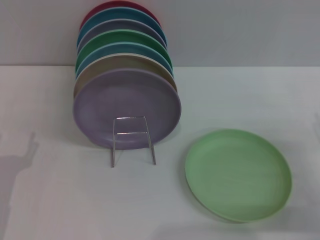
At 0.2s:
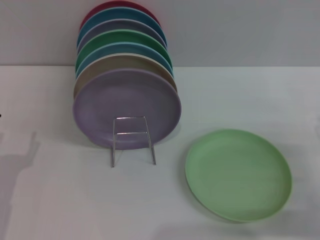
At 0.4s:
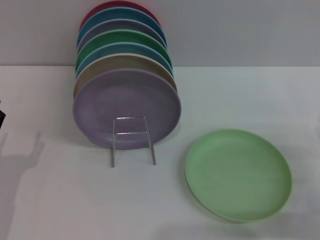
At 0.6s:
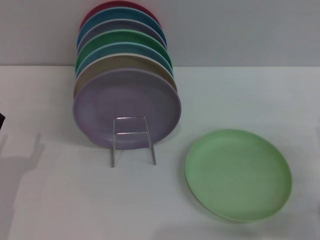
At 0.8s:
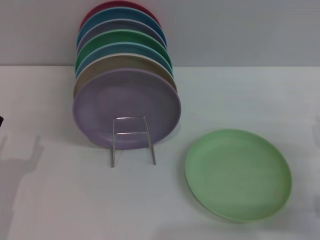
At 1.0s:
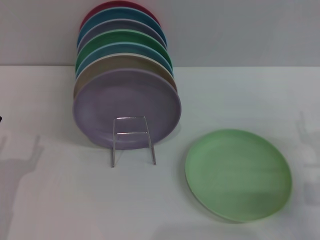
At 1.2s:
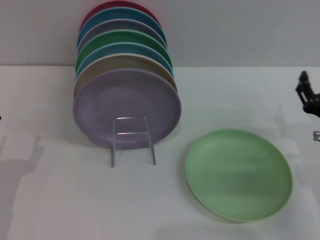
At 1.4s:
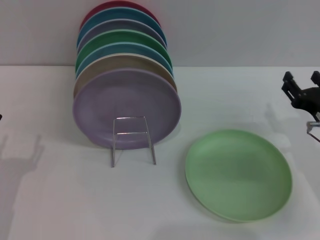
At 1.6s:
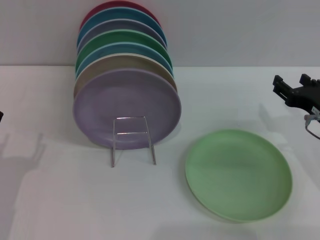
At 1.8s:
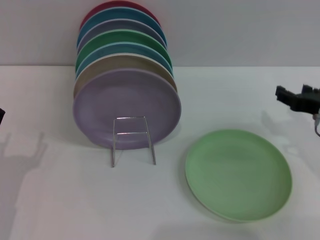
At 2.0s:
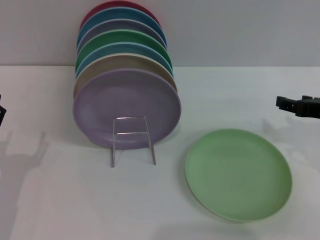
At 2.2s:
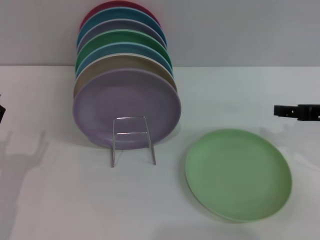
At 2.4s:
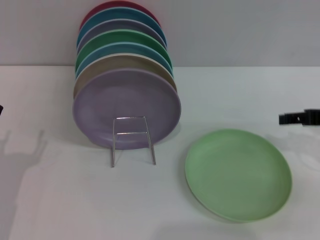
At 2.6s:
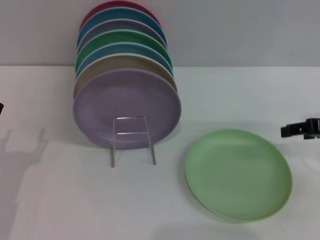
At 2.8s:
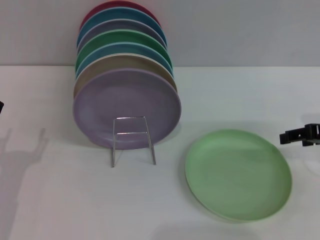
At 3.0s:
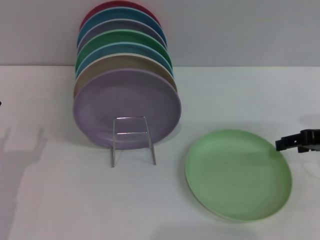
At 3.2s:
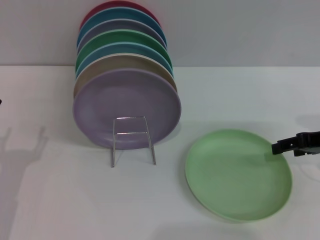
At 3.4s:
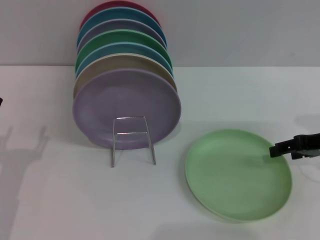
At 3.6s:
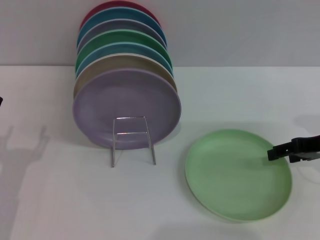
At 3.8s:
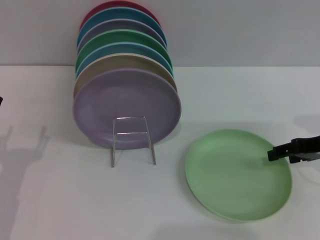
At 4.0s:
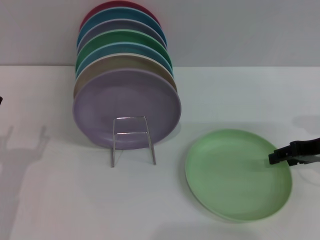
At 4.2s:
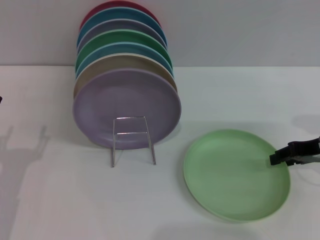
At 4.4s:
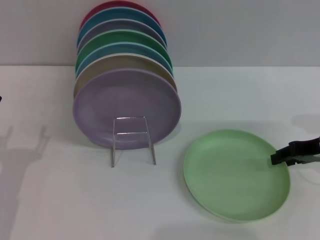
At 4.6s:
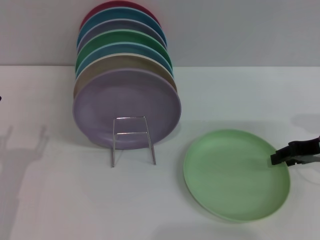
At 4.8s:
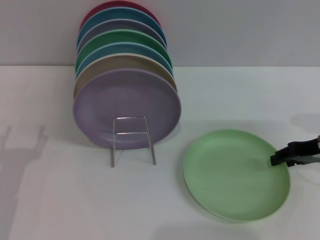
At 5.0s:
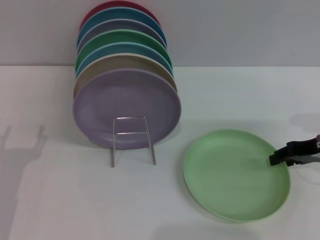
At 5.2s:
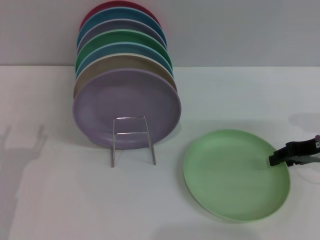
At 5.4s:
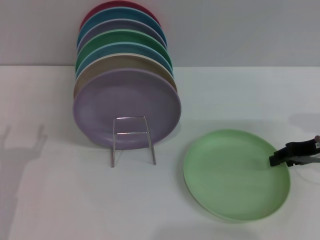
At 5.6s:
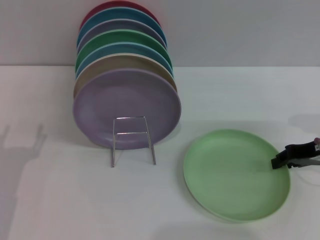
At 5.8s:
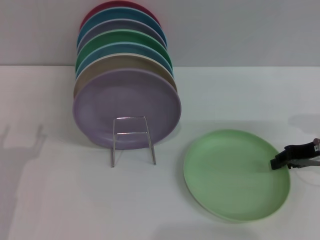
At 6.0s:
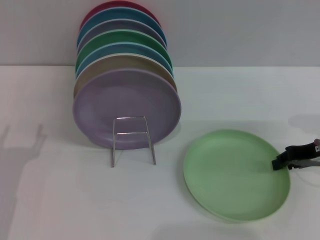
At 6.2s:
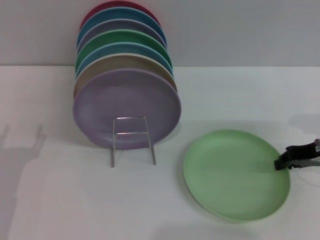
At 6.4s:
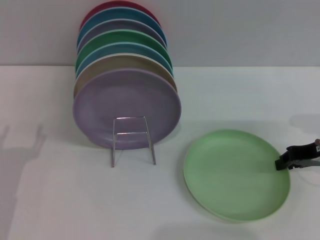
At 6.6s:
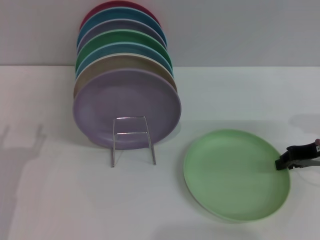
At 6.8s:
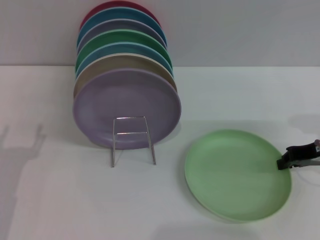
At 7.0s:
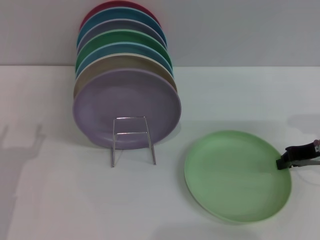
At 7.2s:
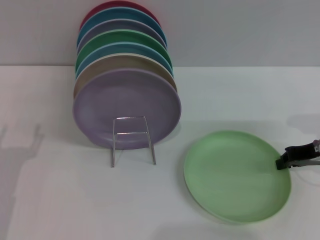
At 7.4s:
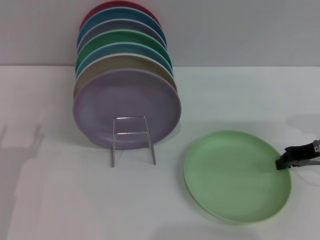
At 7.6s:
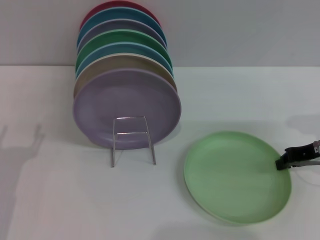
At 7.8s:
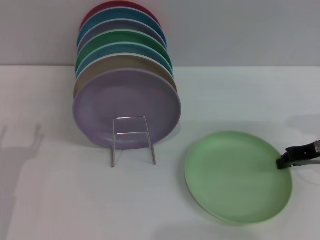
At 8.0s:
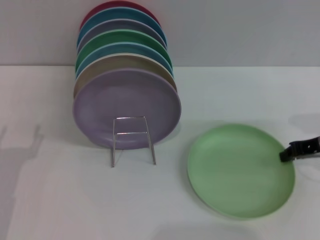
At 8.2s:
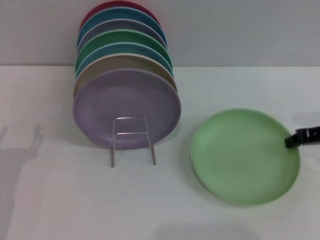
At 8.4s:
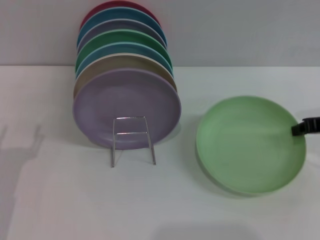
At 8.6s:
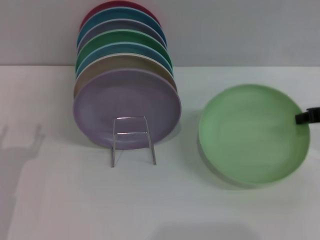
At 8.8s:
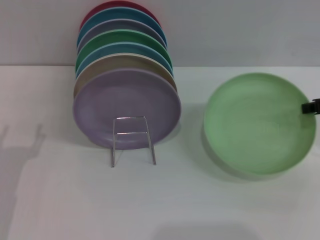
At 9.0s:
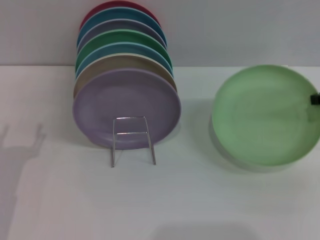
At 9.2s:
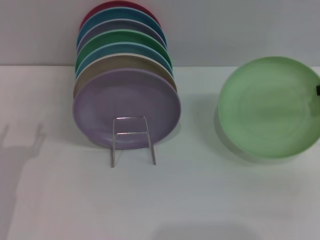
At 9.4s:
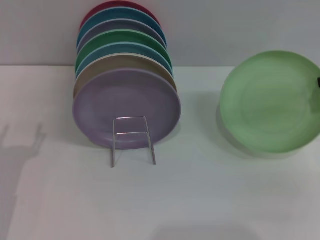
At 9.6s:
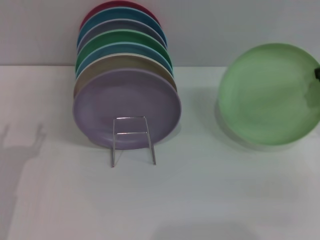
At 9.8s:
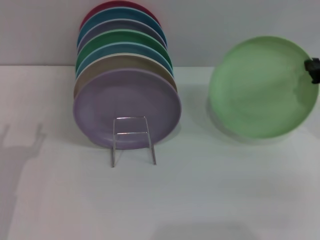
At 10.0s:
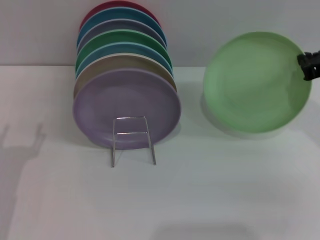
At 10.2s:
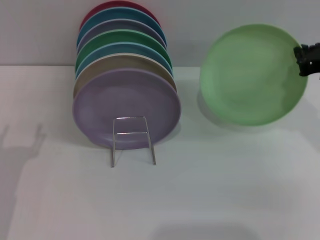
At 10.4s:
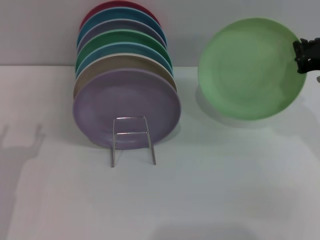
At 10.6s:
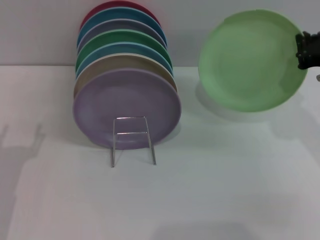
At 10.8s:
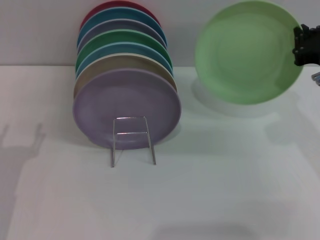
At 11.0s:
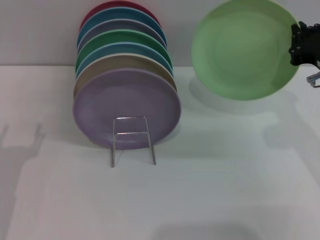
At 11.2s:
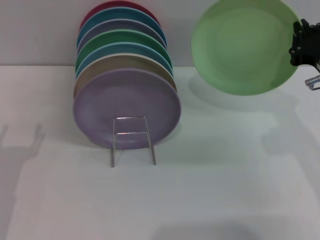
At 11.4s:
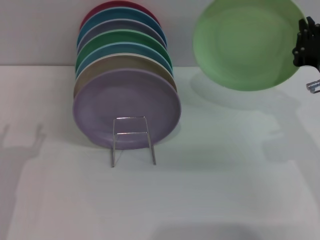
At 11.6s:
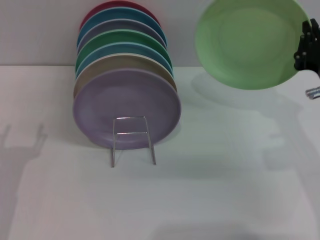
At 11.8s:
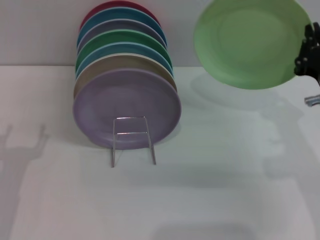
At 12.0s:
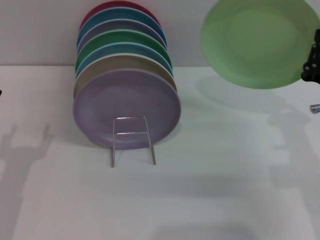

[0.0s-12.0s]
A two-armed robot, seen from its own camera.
Task of the whole recording: Grip the plate with one hand, pass it to the other, then set it on the shelf.
Step, 0.0s to 8.8s: Pick up the plate with the right gripper.
0.0s to 1.6s: The right gripper heads forward and to the left, covering about 10 cm.
1.6s to 3.0s: The right gripper travels upward by about 5 cm.
3.0s to 4.4s: The right gripper closes.
4.4s to 7.6s: Both grippers stay put.
7.6s to 9.0s: The right gripper moves upward, about 5 cm.
9.0s to 10.4s: The right gripper is displaced to the left by some 5 cm.
10.4s to 12.0s: The right gripper shifts roughly 10 cm backward and downward.

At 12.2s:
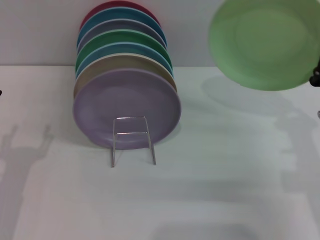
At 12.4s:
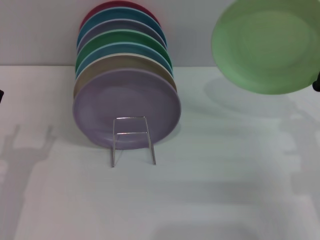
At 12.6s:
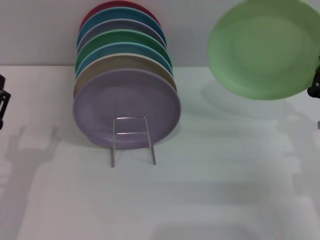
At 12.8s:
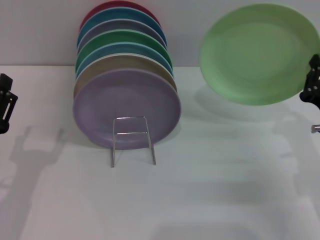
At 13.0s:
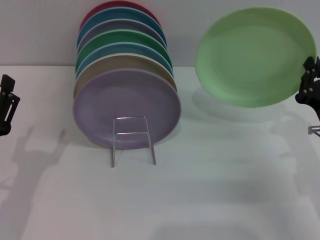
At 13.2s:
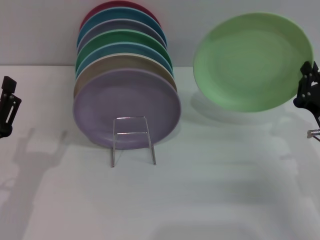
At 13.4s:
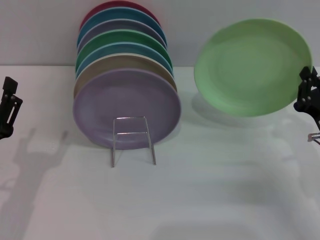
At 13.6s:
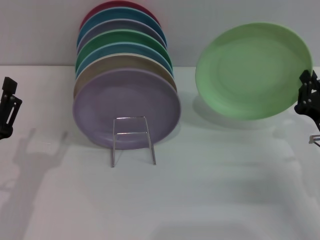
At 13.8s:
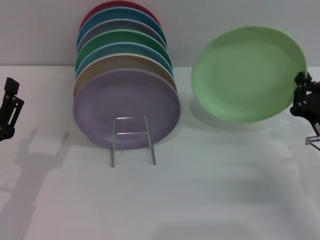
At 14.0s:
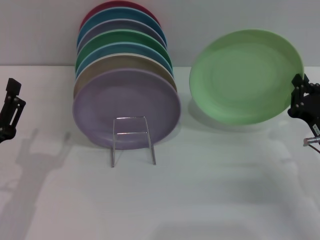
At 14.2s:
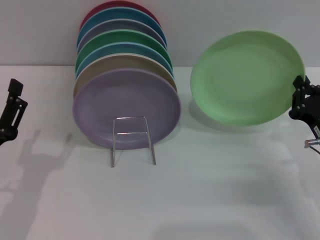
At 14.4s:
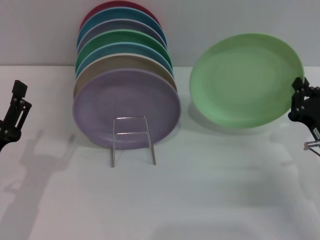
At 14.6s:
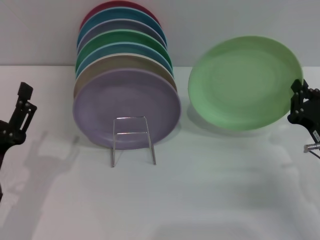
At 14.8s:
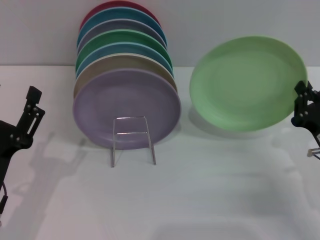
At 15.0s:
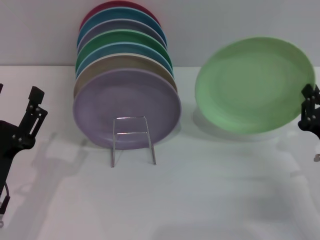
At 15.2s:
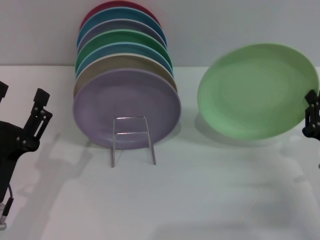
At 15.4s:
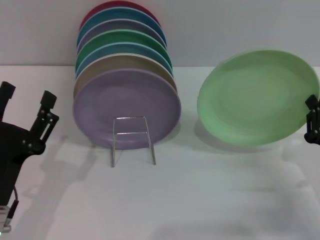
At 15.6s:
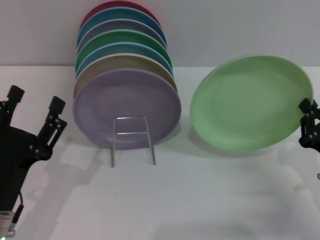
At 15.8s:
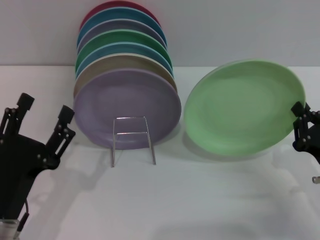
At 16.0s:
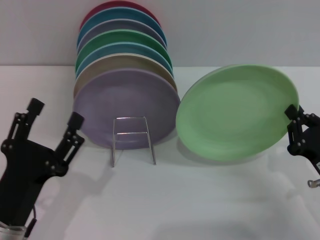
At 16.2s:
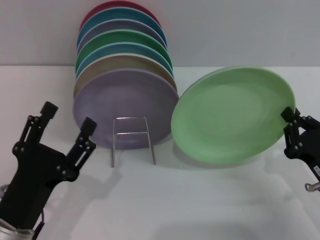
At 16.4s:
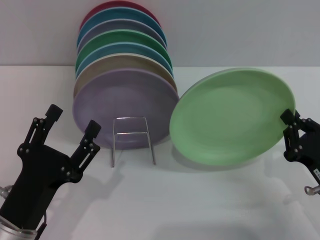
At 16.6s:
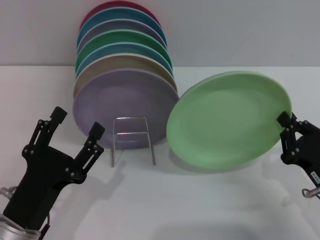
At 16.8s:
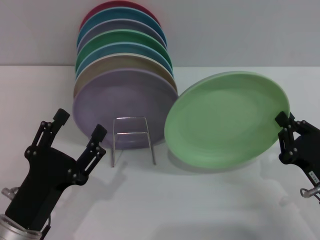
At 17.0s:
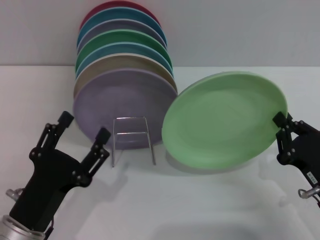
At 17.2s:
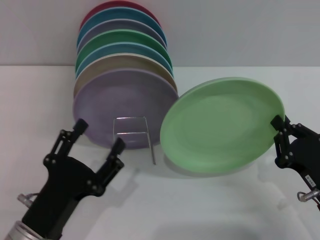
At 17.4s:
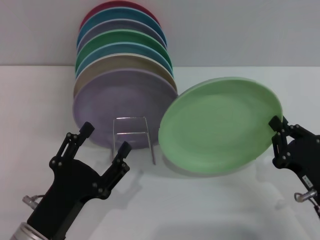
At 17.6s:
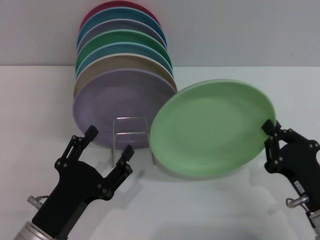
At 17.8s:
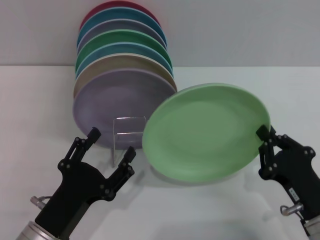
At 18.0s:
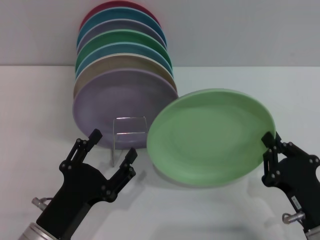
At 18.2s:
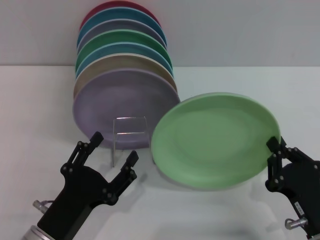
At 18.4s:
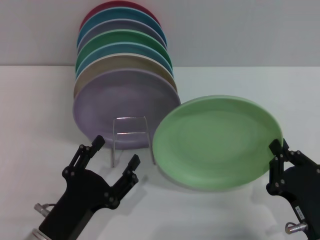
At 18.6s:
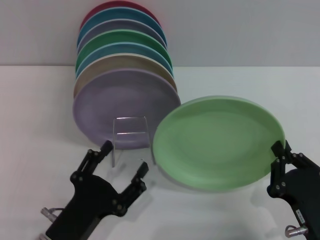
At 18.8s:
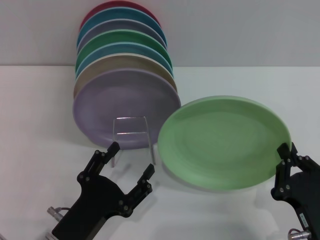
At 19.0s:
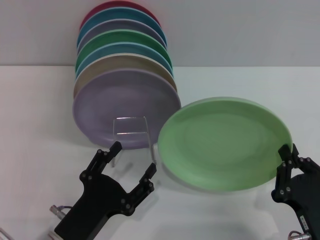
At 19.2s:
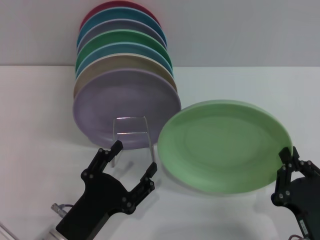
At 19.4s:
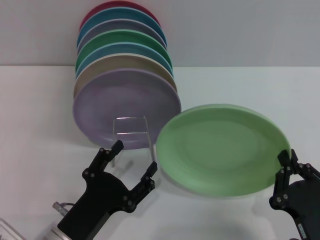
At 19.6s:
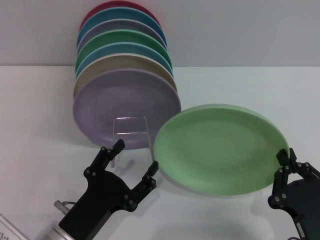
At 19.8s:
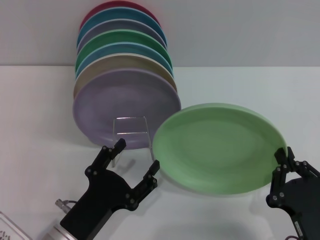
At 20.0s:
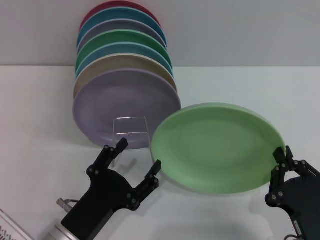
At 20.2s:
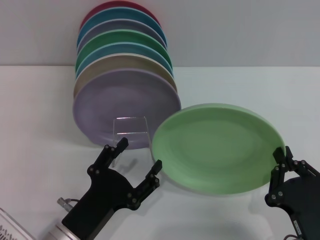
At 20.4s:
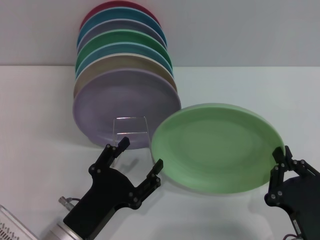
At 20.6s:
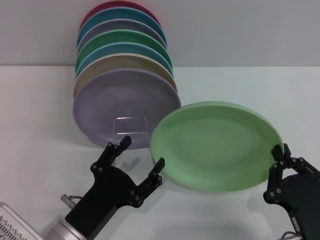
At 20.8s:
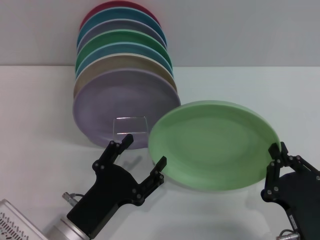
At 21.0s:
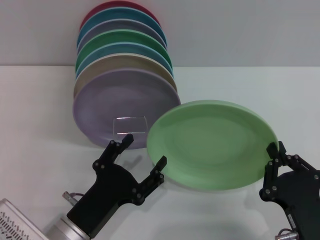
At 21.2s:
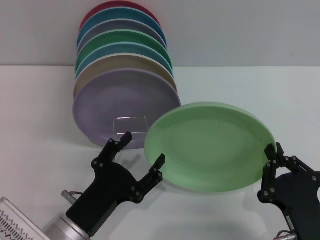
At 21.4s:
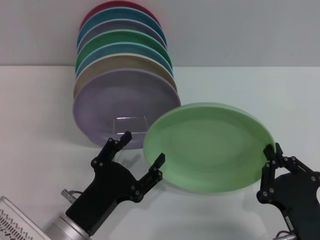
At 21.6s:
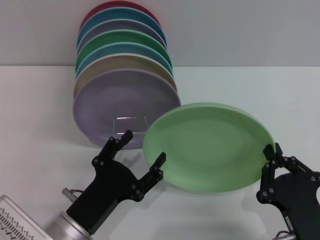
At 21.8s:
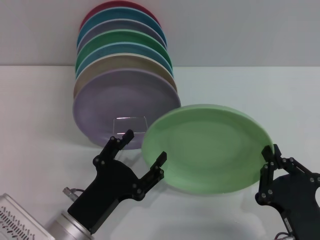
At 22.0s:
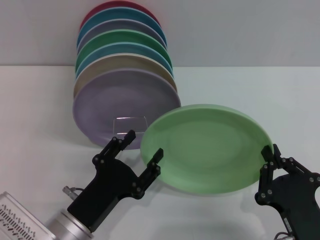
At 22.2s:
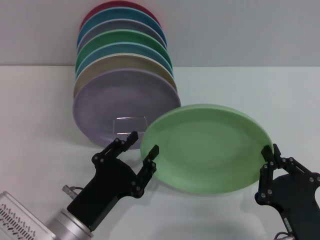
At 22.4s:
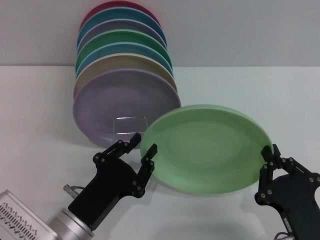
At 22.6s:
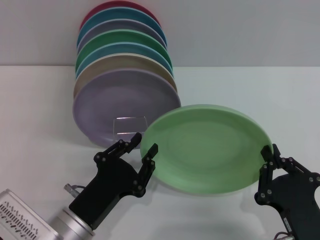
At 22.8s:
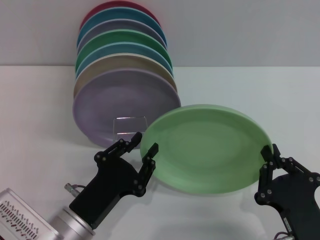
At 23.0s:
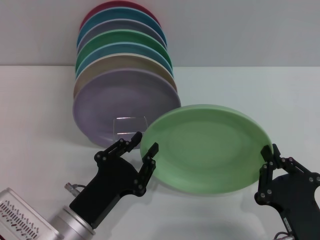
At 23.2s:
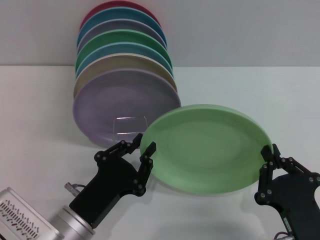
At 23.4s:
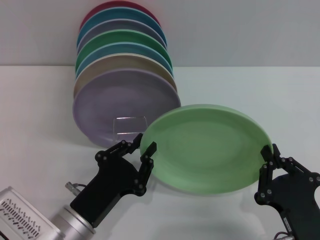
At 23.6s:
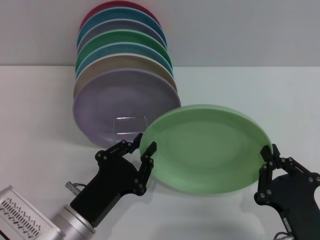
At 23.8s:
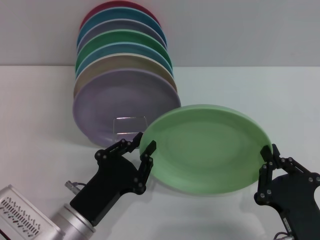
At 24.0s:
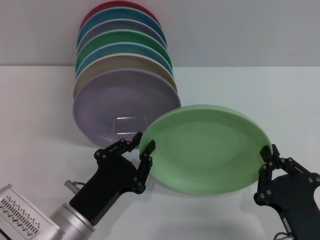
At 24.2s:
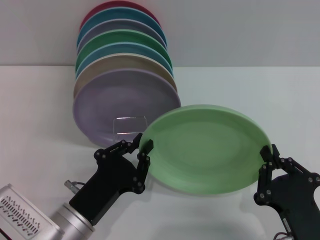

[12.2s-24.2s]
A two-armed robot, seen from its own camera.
Task of the whole recording: Grip the plate with one hand, pass it to the other, then set it on the shelf.
12.2s to 13.8s: The right gripper moves downward, some 5 cm.
13.8s to 15.2s: The grippers make only small movements.
16.6s to 18.2s: The right gripper ends up approximately 5 cm from where it was.
18.2s to 19.8s: There are only small adjustments of the grippers.
19.8s to 21.2s: Both grippers stay about where they are.
21.2s to 22.6s: The left gripper closes.
22.6s to 24.2s: Neither gripper changes place.
